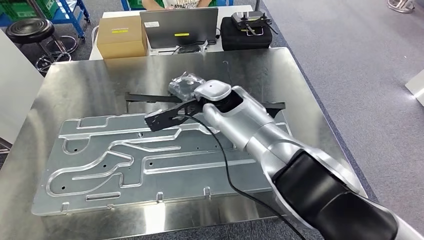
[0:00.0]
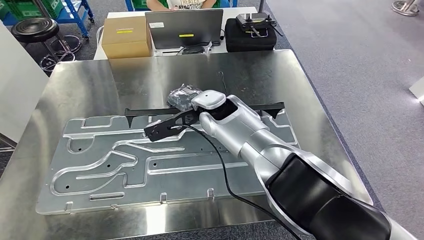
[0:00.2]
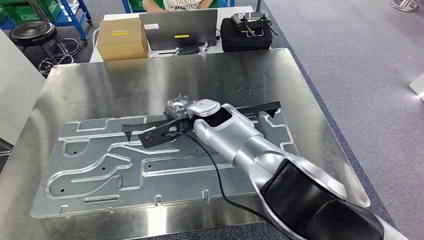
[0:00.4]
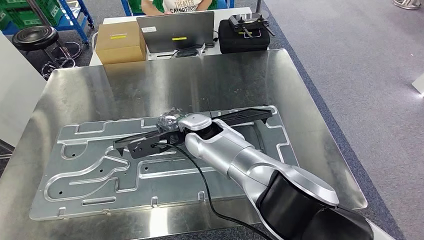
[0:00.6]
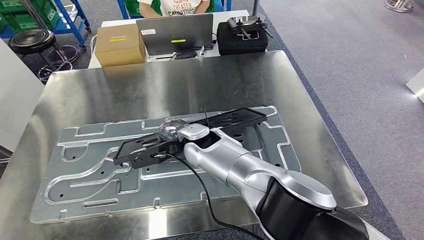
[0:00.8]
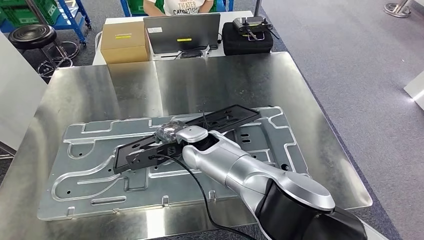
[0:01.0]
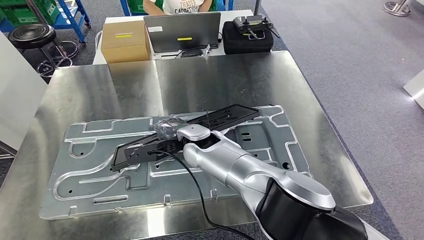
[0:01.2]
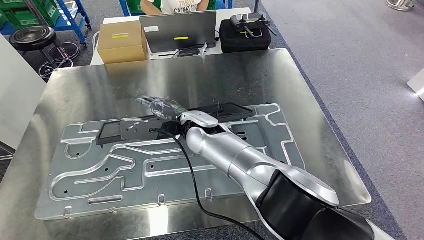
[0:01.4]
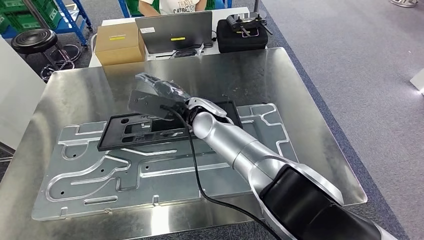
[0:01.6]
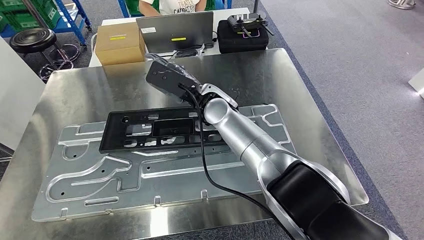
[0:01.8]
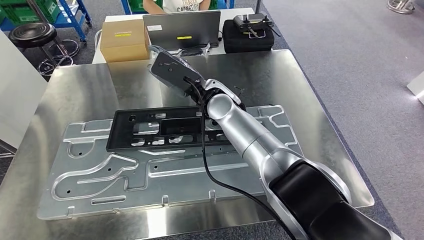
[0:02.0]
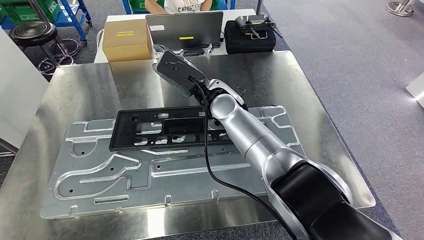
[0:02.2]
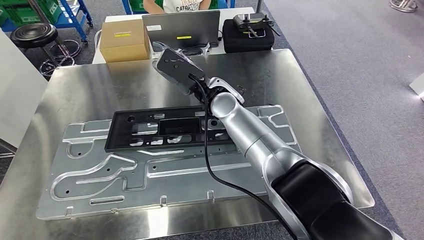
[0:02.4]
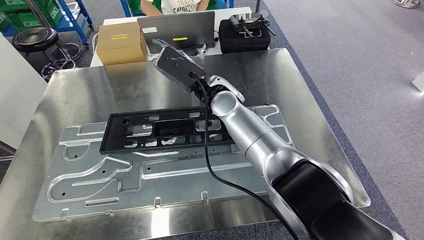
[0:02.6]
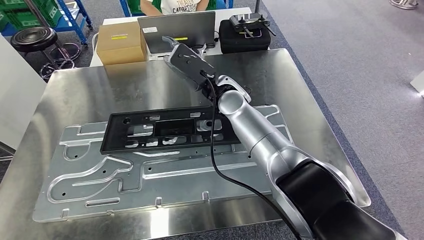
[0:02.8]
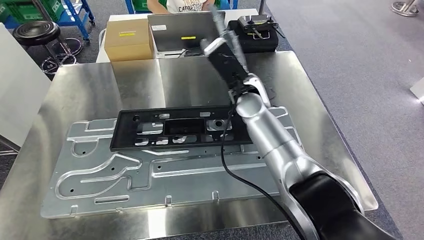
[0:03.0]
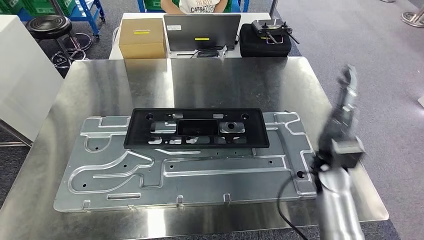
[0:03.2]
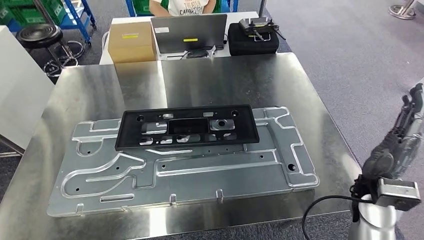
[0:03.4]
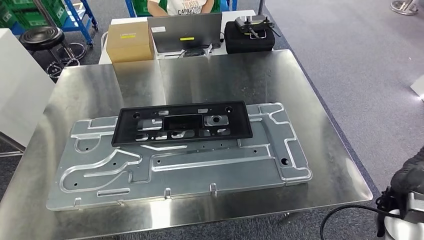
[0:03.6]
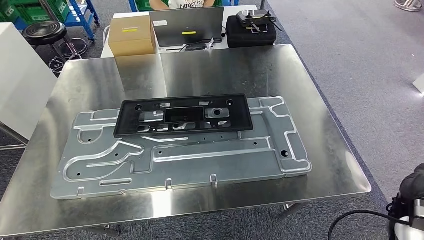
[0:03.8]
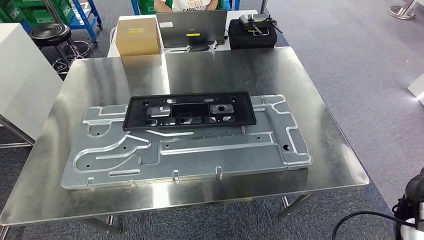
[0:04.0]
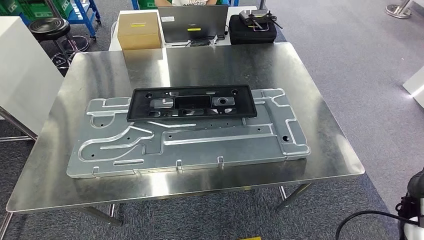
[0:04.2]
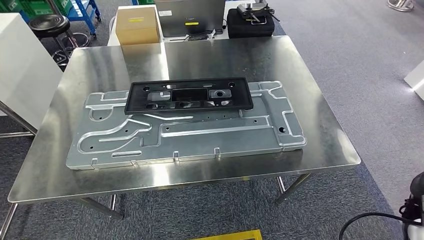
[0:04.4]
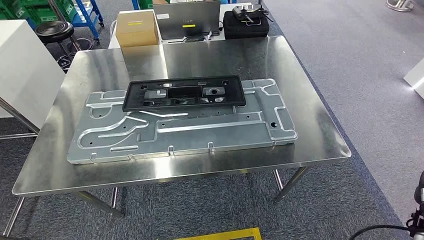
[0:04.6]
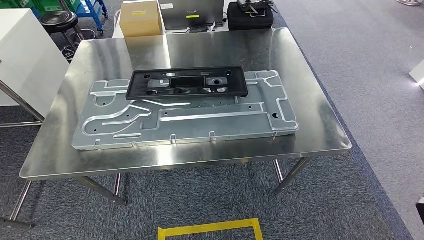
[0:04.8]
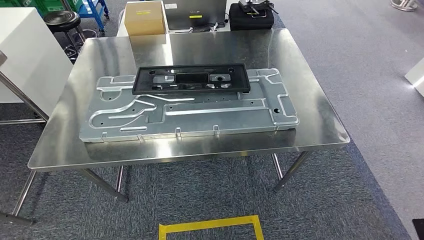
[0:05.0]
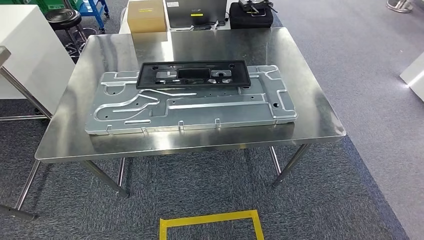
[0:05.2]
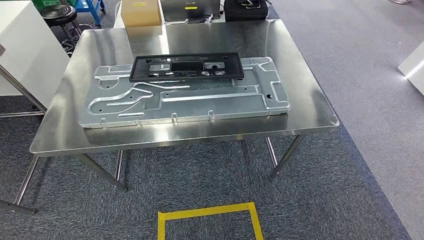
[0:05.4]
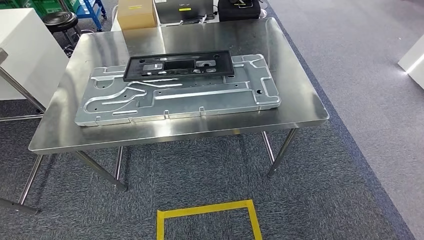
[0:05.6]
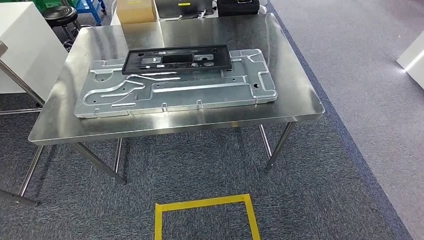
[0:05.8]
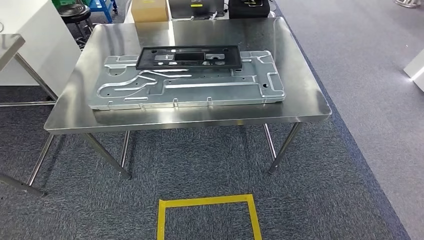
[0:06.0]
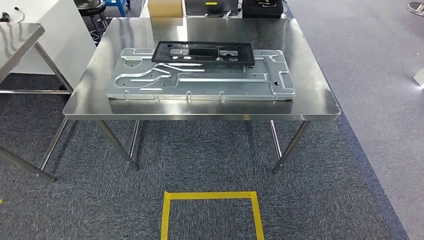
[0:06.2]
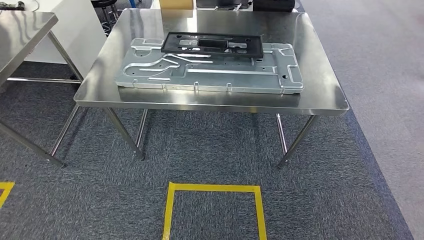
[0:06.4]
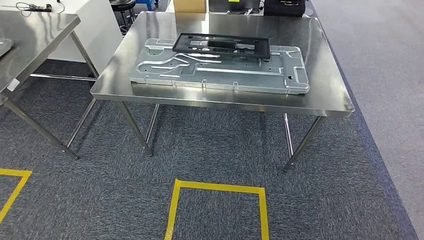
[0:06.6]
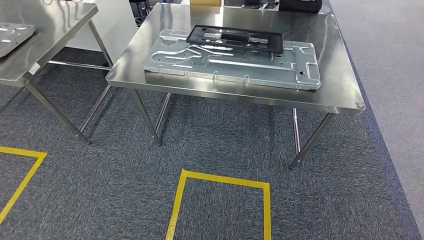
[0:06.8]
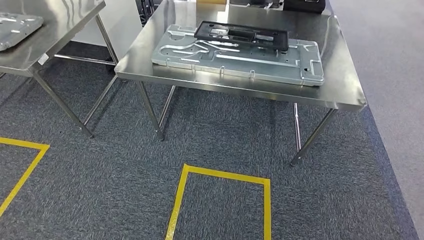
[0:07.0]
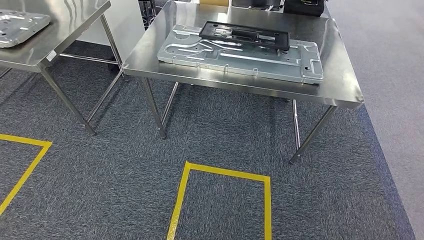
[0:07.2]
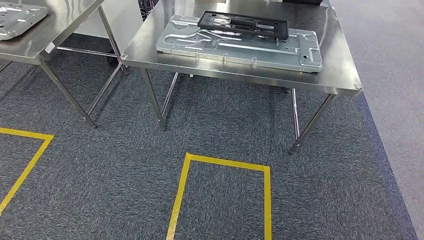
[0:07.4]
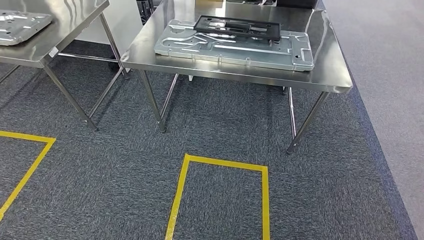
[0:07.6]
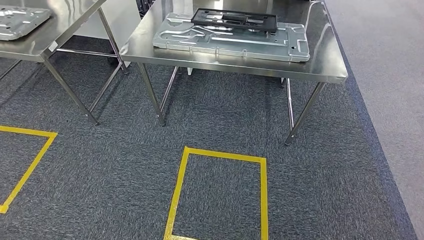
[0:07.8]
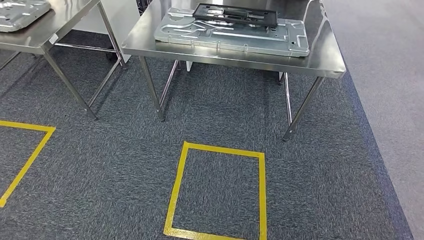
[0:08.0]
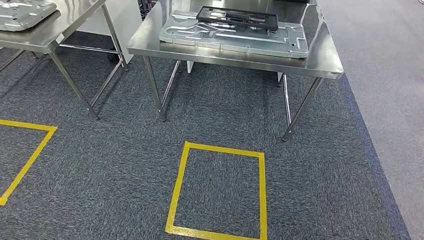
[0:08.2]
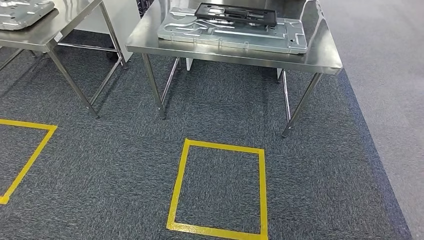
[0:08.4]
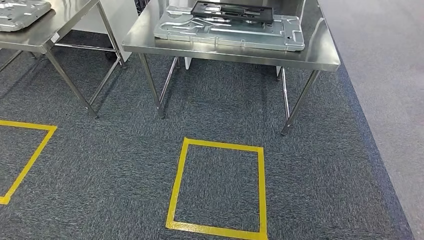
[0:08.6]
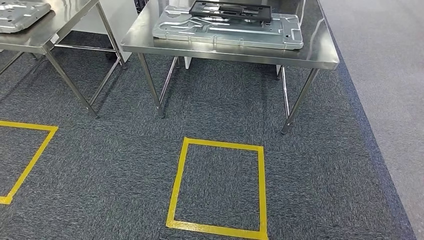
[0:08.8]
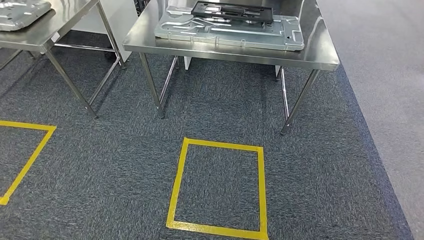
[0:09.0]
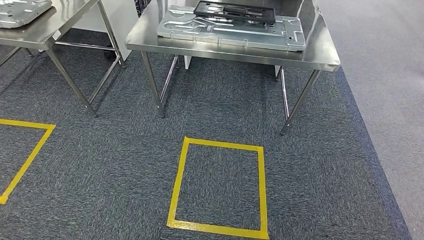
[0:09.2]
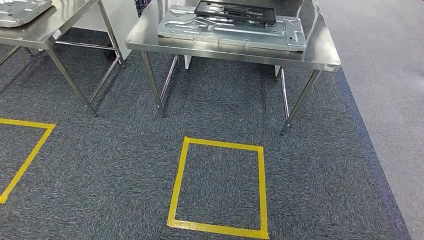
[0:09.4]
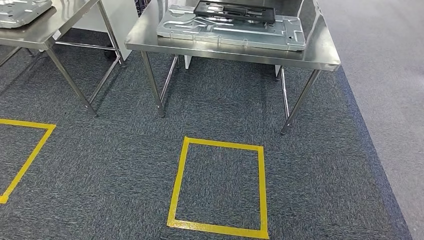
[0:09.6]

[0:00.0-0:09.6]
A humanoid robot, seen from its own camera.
Step, 0:00.0 to 0:03.2: Insert the large material into the corresponding slot on the workbench.
Step, 0:03.6 to 0:09.6: Move to the initial position of the shelf.
0:08.0 to 0:09.6: The hands stay close to where they were, moving slightly.

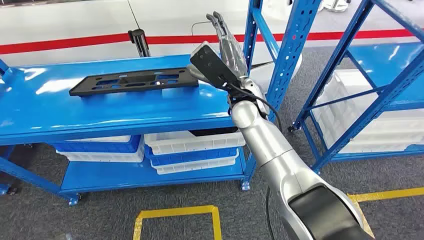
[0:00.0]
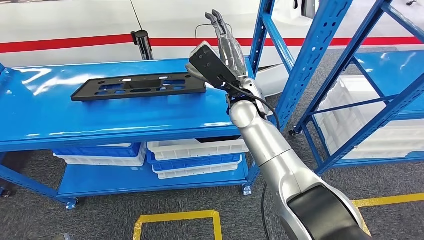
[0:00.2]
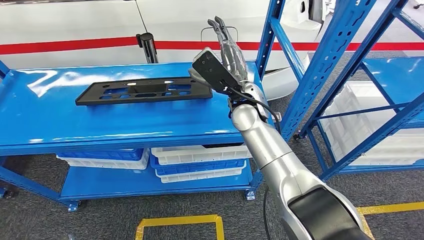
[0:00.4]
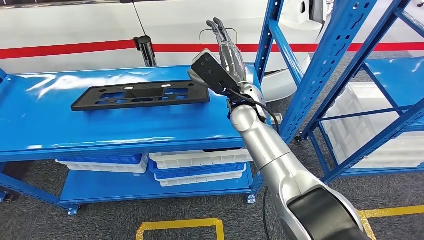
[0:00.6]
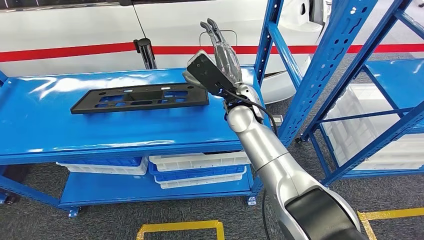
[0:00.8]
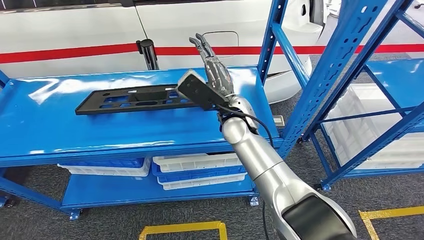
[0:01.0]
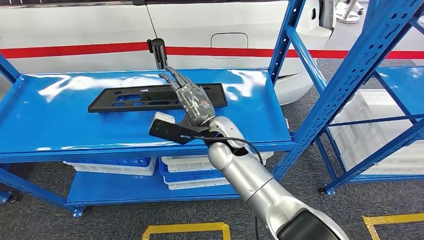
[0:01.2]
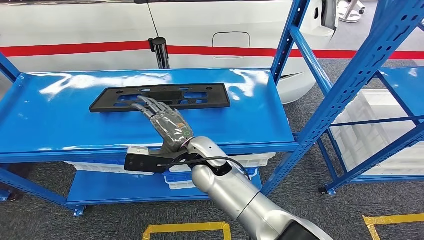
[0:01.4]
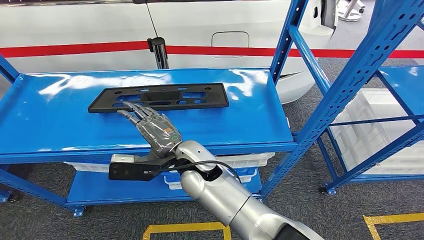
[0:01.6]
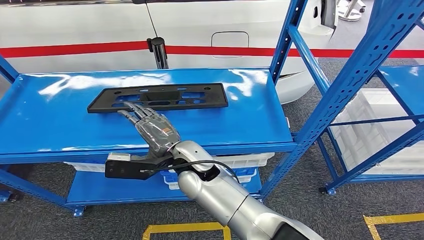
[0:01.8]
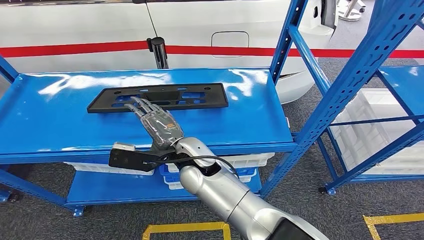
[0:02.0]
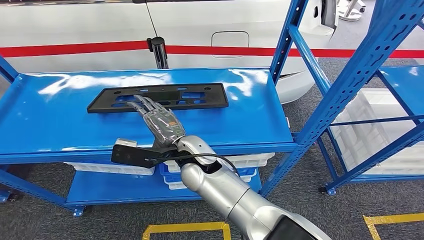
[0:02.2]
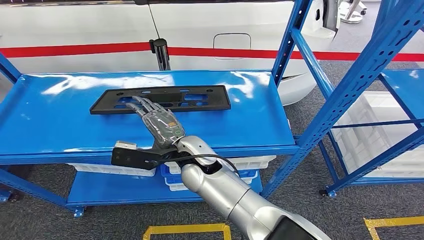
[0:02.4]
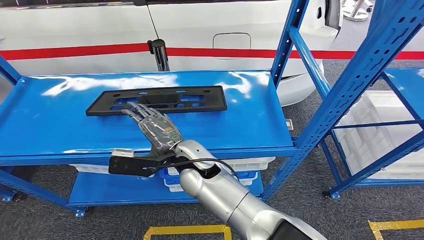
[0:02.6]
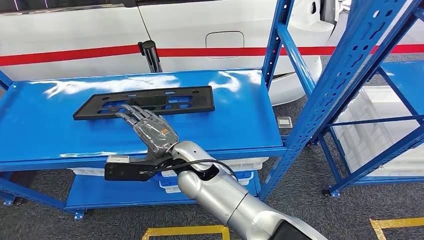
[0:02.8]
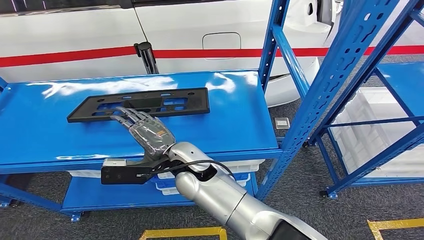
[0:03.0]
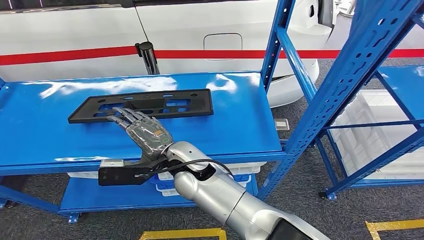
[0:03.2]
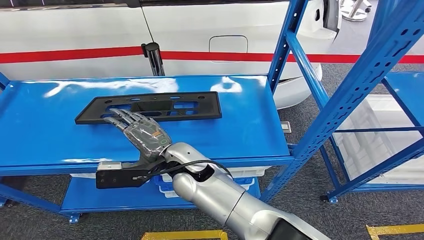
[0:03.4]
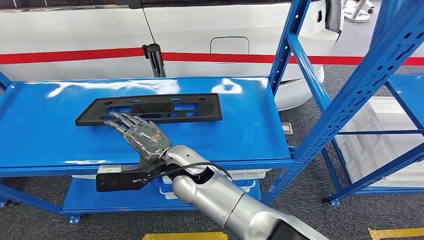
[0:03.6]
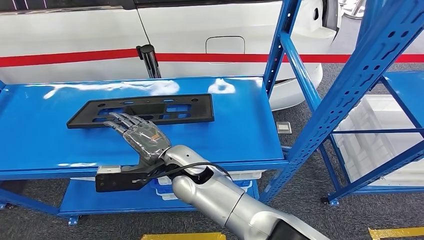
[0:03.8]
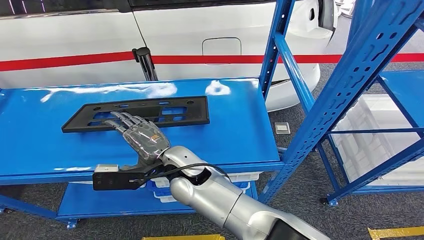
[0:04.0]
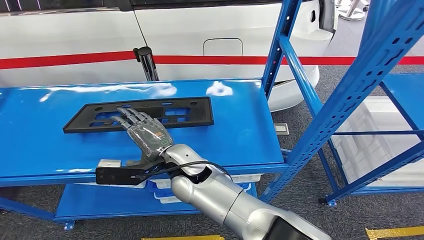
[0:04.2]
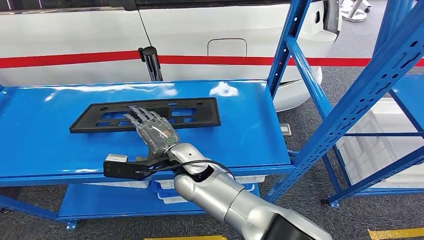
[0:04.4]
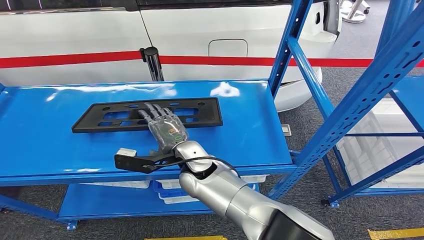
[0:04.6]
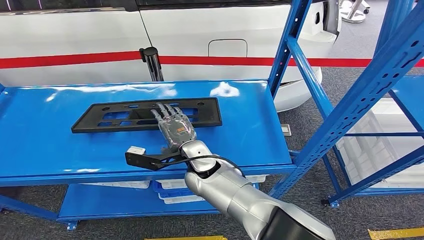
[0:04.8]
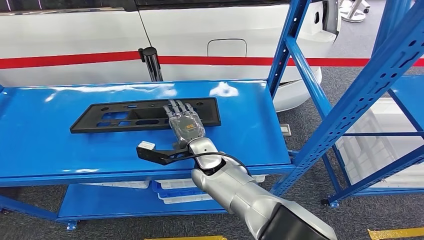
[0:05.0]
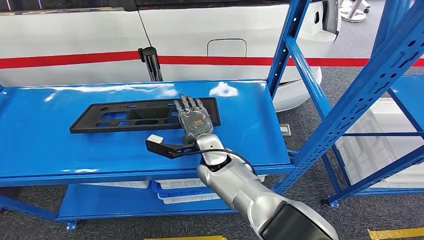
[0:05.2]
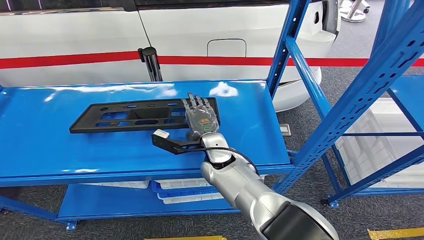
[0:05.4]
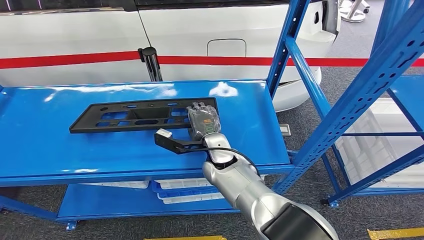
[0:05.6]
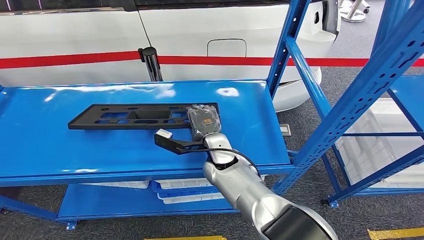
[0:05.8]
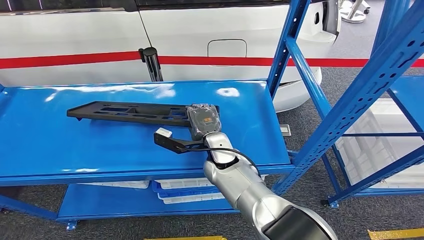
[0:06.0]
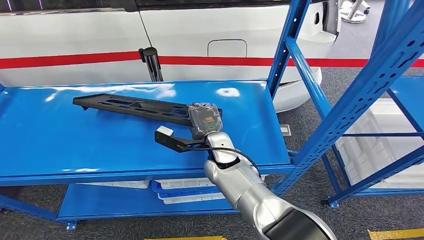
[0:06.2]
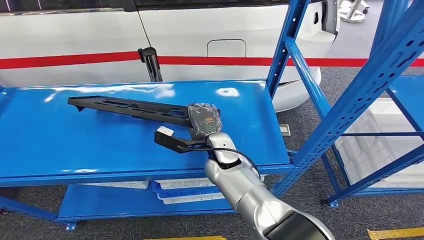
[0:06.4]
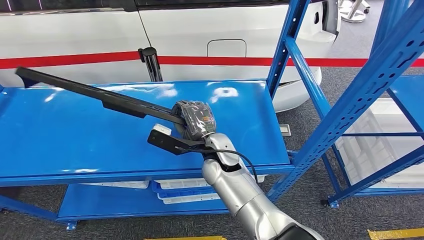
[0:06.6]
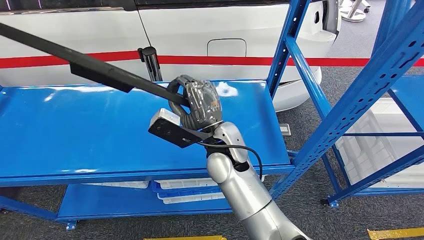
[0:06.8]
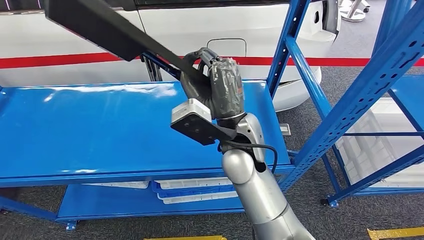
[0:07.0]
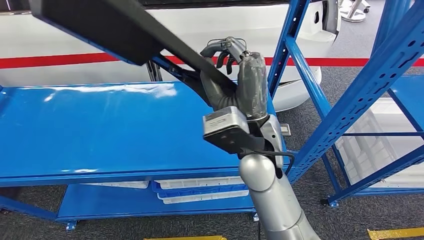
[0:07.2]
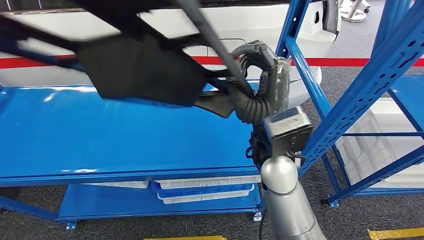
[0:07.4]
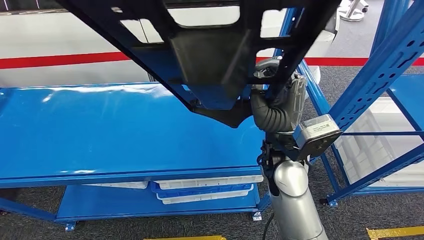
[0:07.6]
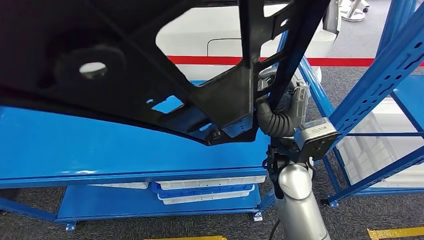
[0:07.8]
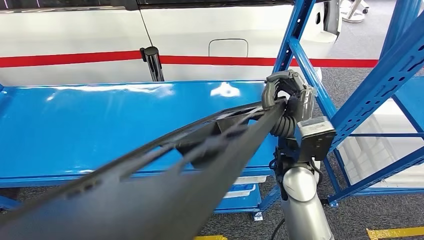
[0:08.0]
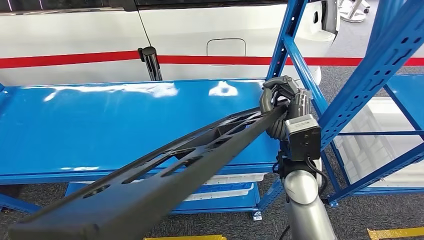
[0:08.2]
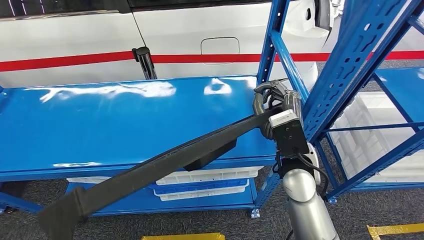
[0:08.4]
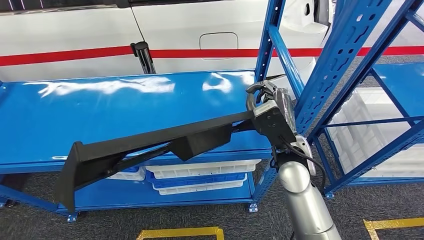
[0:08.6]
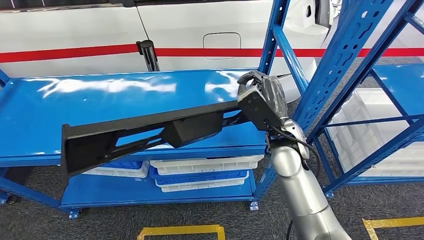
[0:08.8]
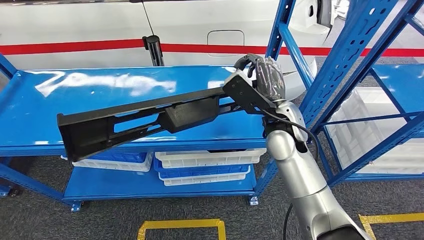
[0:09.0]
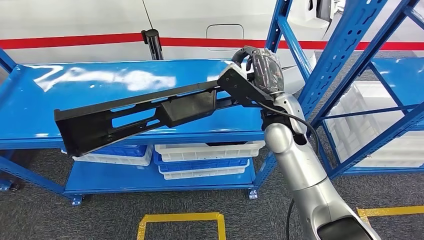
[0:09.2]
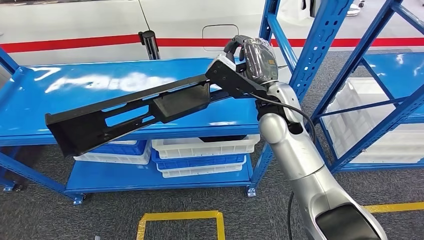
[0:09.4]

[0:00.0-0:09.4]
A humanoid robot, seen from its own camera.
0:04.8 to 0:06.2: The right hand moves to the right, about 5 cm.
